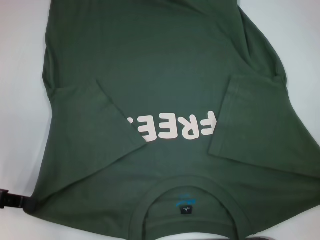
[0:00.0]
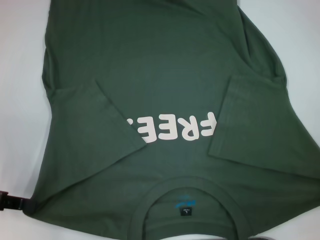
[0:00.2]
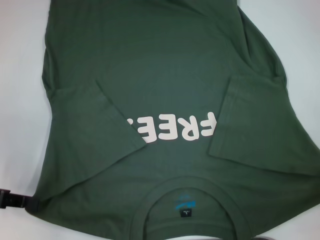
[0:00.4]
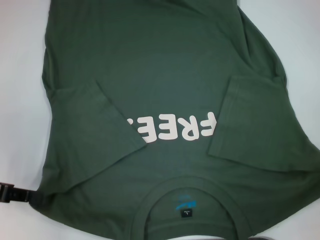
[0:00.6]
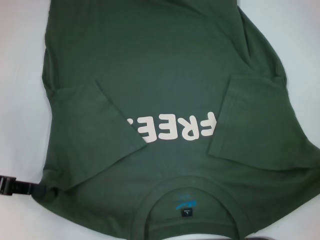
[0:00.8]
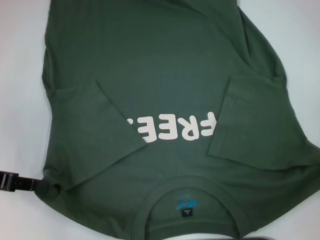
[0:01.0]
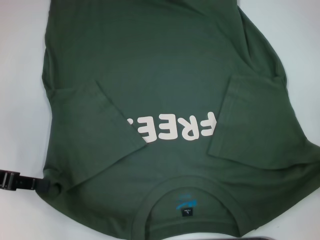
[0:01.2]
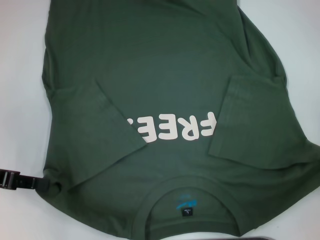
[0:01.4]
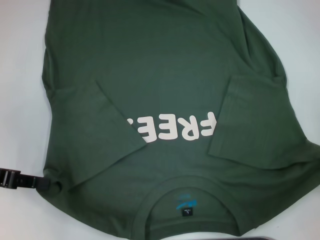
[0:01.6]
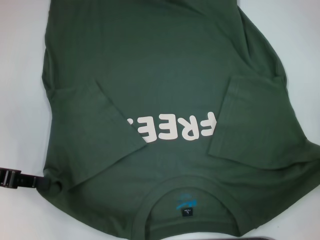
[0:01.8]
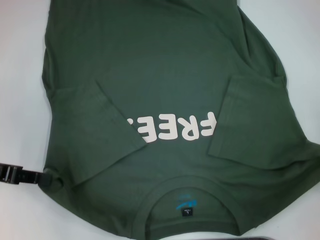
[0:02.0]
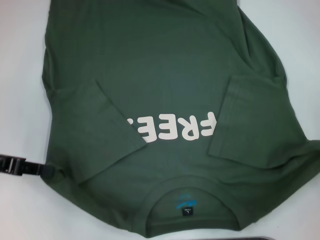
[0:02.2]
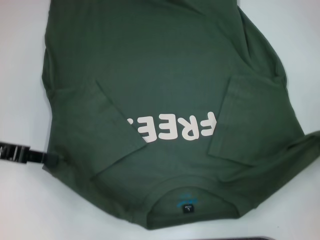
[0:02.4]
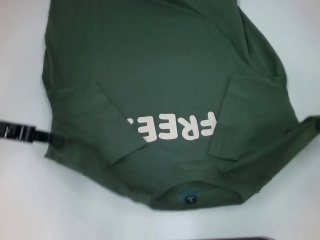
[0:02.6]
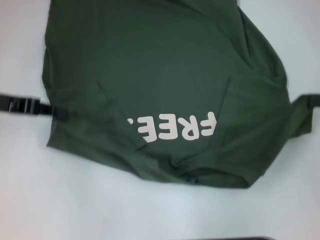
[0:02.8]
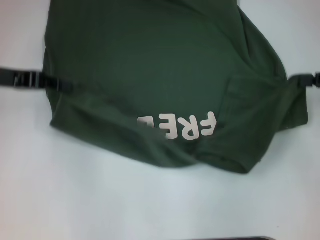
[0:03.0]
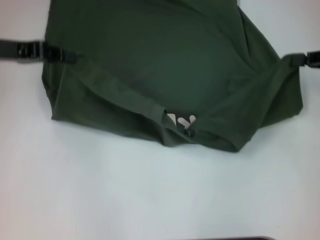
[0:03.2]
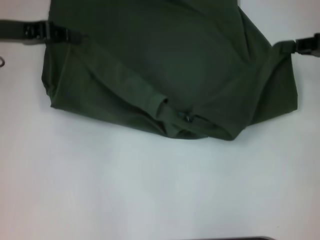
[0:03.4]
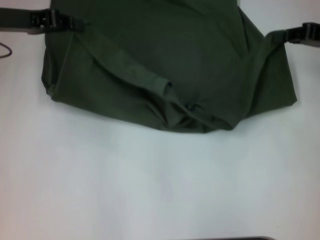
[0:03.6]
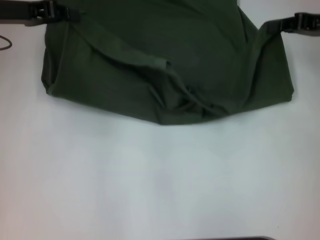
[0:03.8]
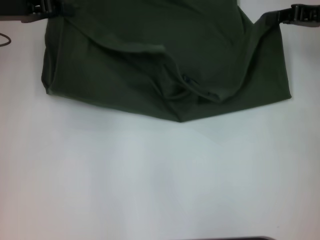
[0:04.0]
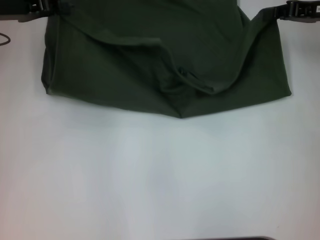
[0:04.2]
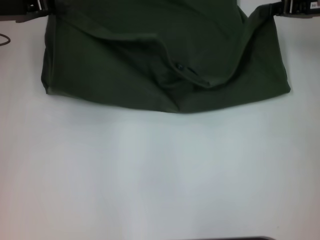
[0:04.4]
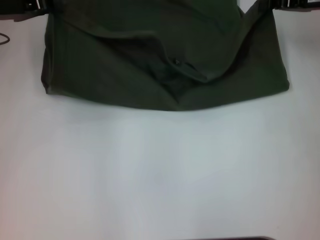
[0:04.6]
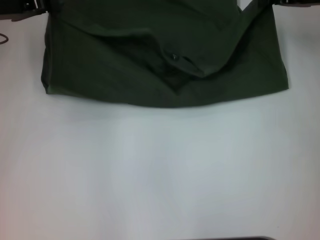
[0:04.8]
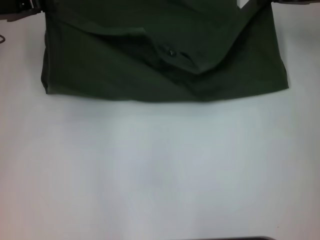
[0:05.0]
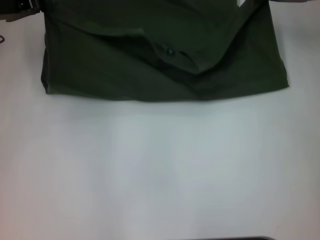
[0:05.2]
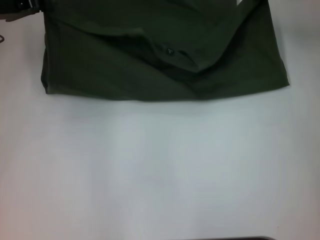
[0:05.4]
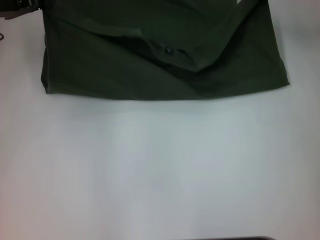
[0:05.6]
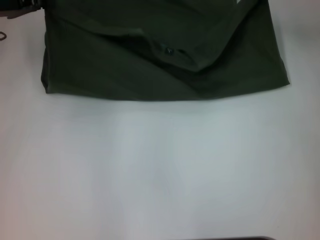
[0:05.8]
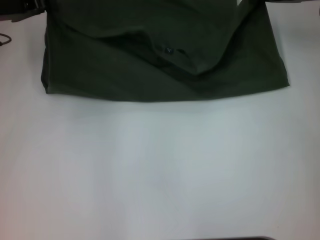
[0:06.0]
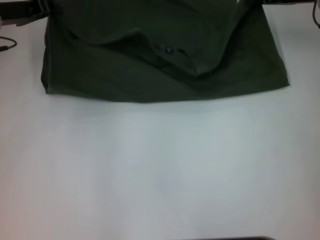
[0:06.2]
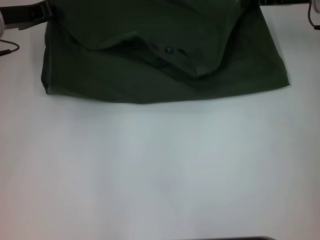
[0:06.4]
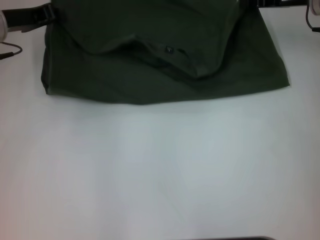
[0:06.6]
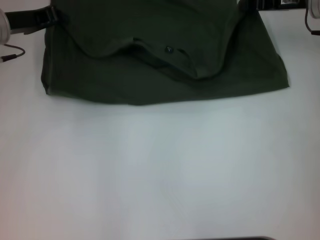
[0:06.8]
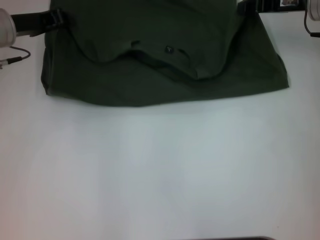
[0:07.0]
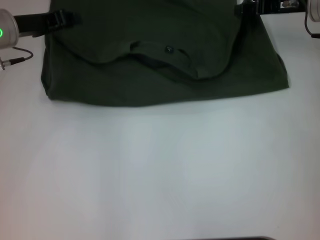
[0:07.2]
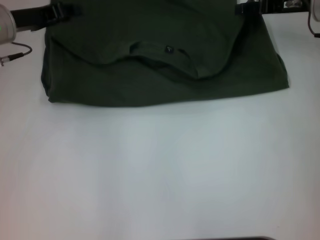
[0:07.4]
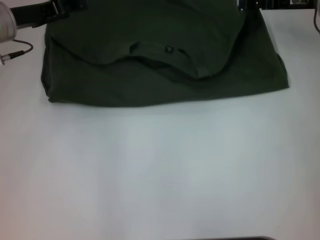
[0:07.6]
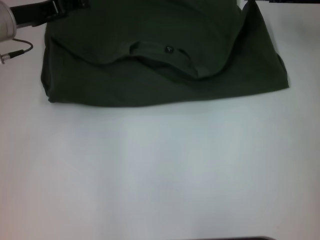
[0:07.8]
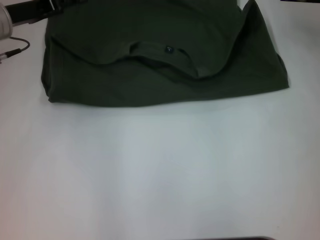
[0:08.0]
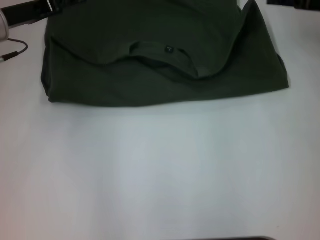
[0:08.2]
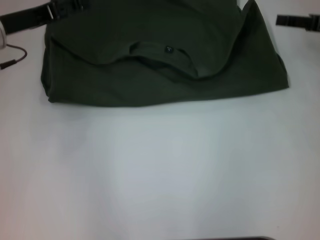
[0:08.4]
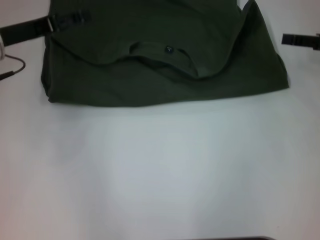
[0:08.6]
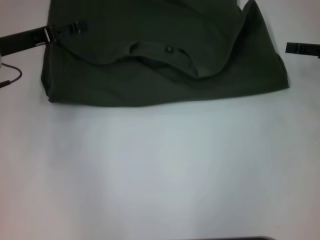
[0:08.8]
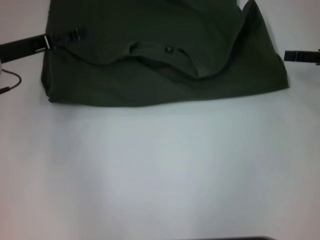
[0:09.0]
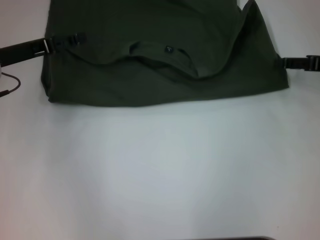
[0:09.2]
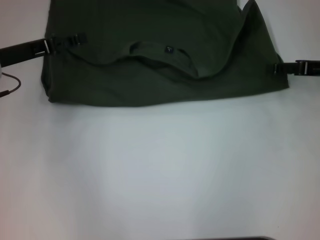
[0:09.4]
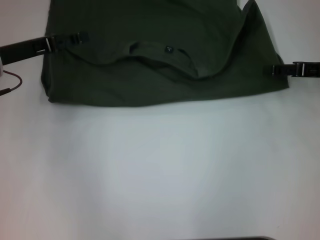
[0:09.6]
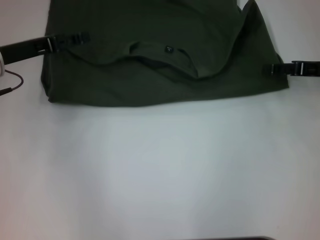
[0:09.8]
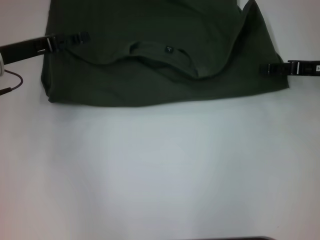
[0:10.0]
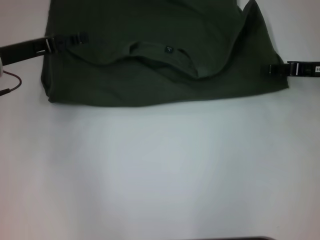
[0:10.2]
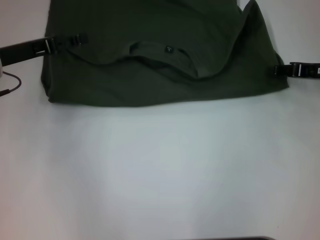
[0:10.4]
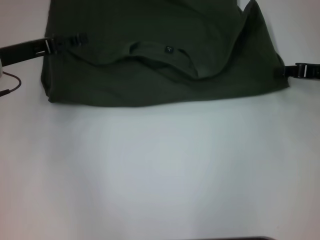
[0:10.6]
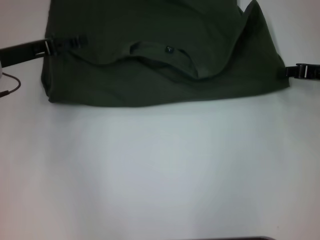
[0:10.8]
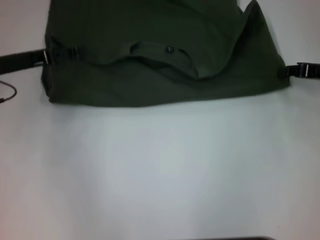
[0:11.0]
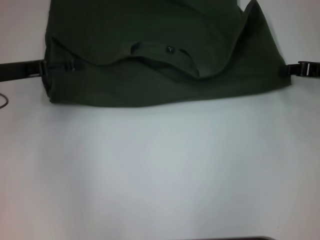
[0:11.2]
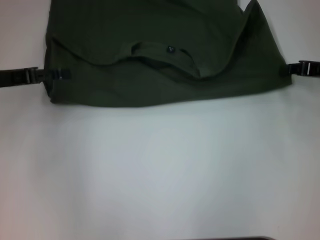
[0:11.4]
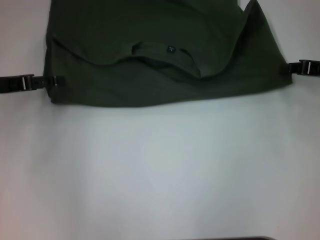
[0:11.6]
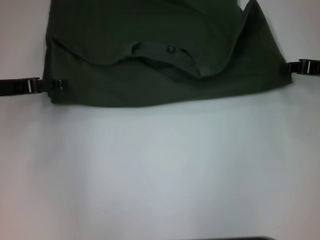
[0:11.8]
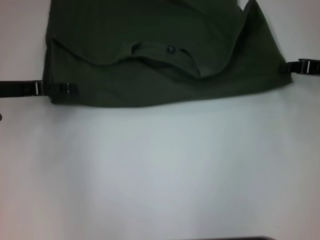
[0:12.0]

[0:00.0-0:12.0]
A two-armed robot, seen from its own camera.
Step, 0:00.4 to 0:07.6: Fold the clothes with your left hand.
Step, 0:00.4 to 0:07.6: Fold the clothes with your right hand.
0:00.0 to 0:01.6: The grippers move only a little.
0:01.6 to 0:03.0: The left gripper shifts some 10 cm forward and upward. The right gripper travels forward by about 10 cm.
0:03.0 to 0:04.4: The right gripper goes some 15 cm forward and to the left. The left gripper shifts some 5 cm forward.
0:04.4 to 0:06.0: The grippers make only small movements.
0:06.0 to 0:07.6: The right gripper opens up; the left gripper opens.
0:07.6 to 0:09.0: The right gripper goes roughly 15 cm backward and to the right. The left gripper is displaced backward by about 5 cm, and opens its fingers.
0:09.0 to 0:10.4: There are only small adjustments of the grippers.
0:10.4 to 0:12.0: The right gripper closes its fingers.

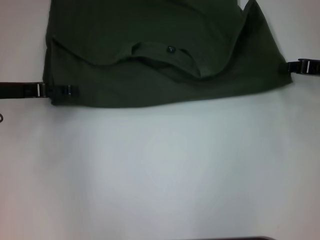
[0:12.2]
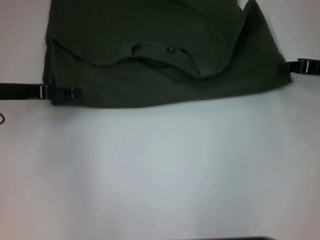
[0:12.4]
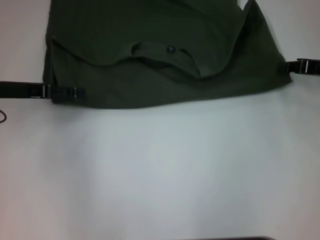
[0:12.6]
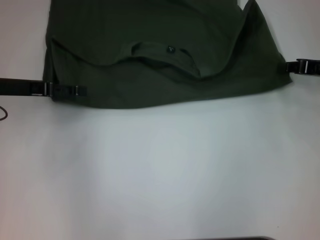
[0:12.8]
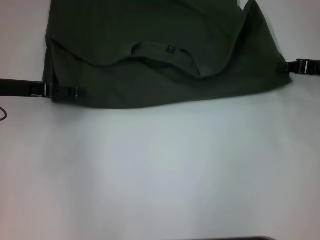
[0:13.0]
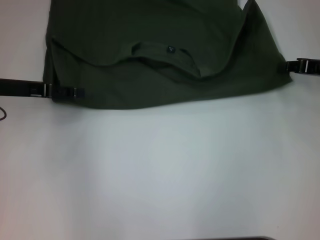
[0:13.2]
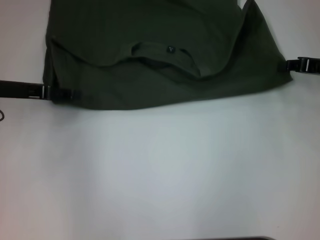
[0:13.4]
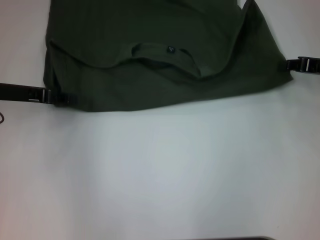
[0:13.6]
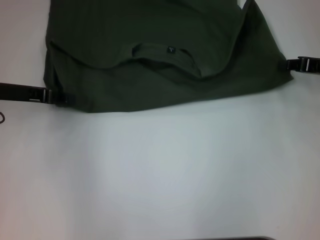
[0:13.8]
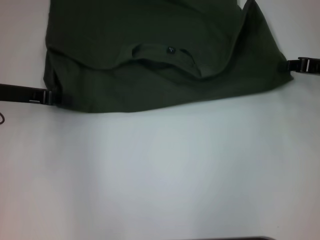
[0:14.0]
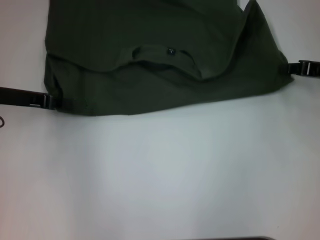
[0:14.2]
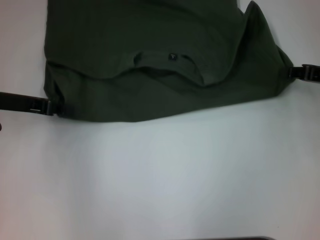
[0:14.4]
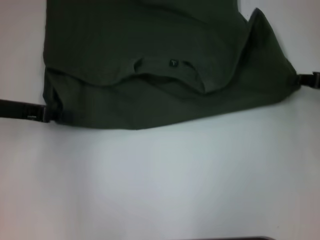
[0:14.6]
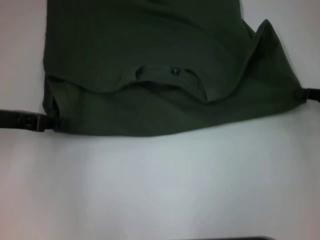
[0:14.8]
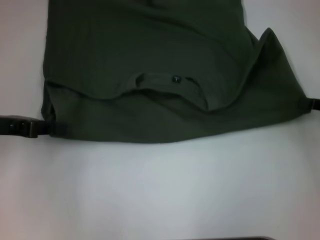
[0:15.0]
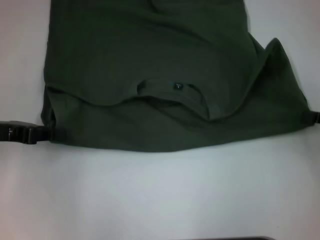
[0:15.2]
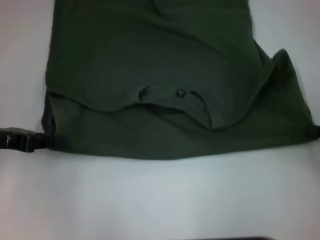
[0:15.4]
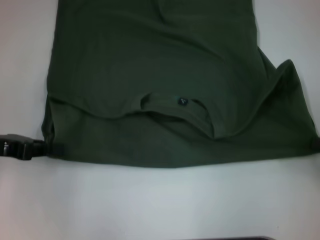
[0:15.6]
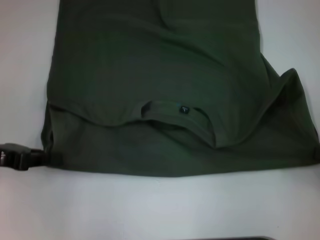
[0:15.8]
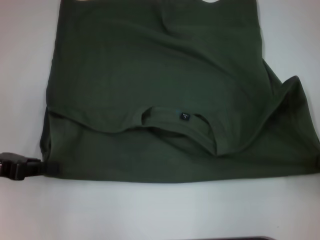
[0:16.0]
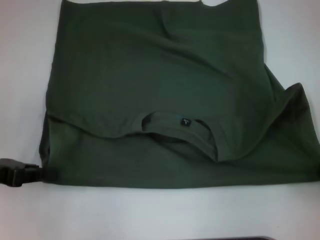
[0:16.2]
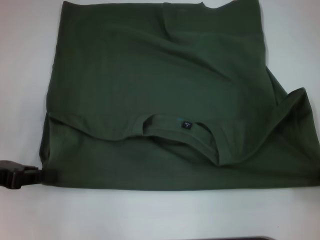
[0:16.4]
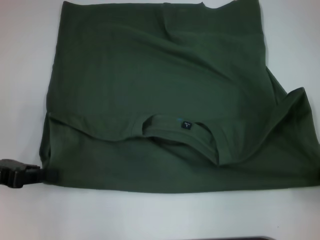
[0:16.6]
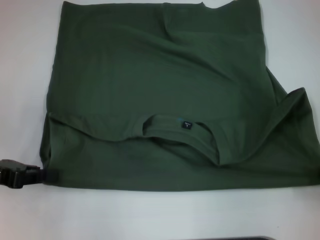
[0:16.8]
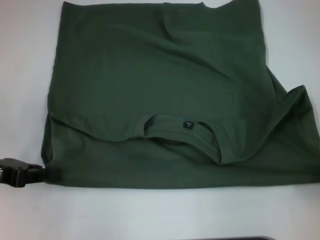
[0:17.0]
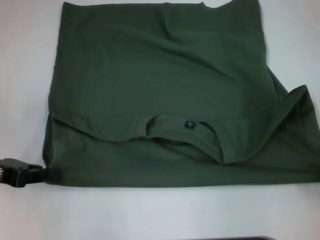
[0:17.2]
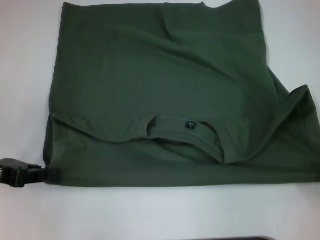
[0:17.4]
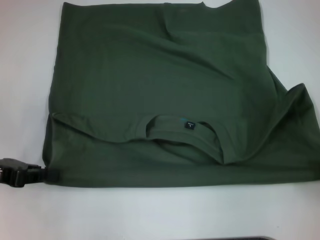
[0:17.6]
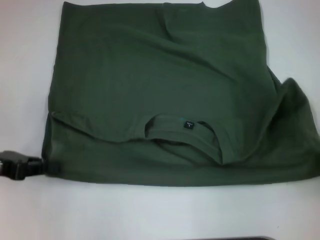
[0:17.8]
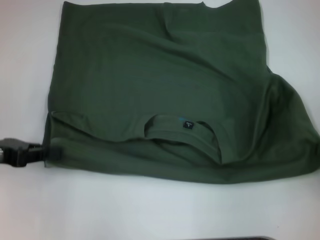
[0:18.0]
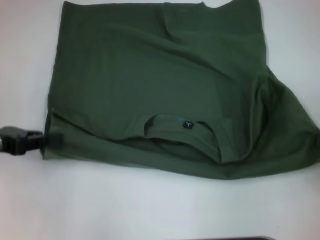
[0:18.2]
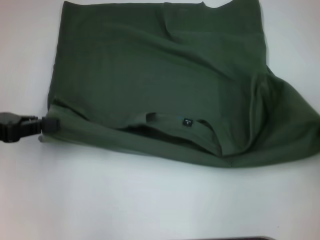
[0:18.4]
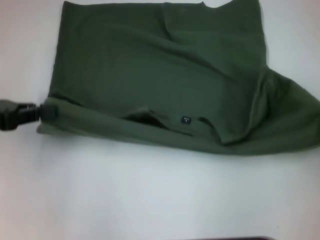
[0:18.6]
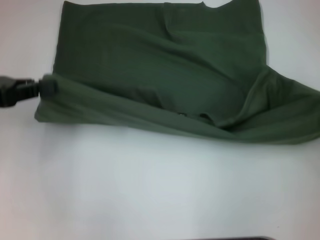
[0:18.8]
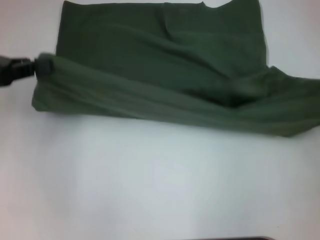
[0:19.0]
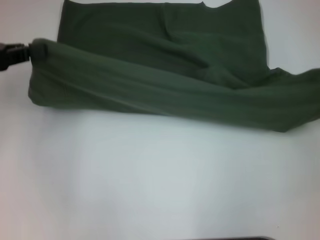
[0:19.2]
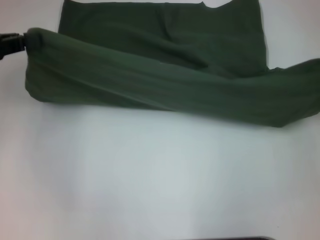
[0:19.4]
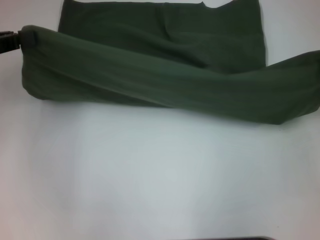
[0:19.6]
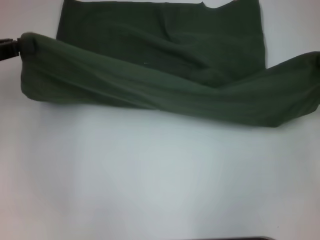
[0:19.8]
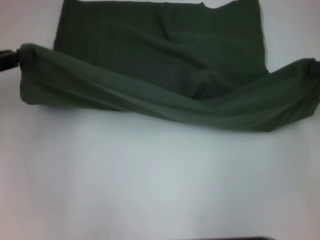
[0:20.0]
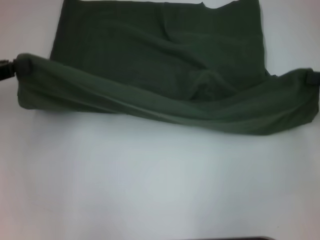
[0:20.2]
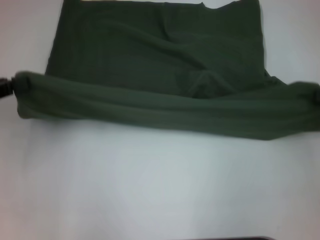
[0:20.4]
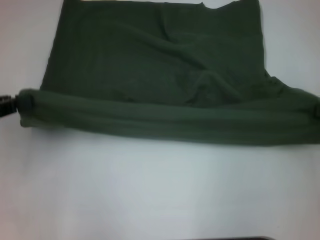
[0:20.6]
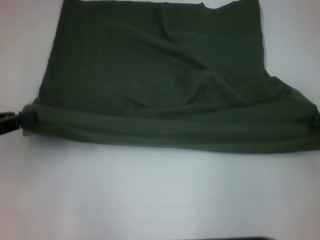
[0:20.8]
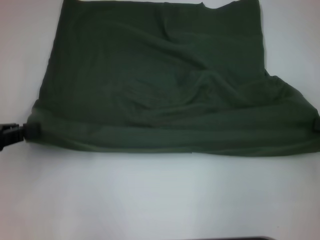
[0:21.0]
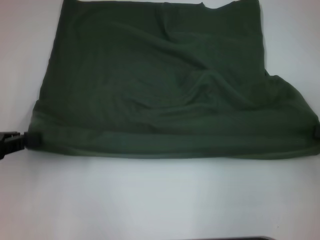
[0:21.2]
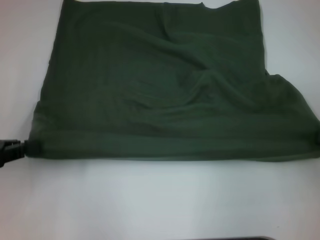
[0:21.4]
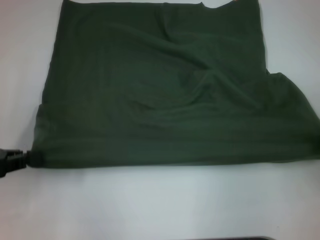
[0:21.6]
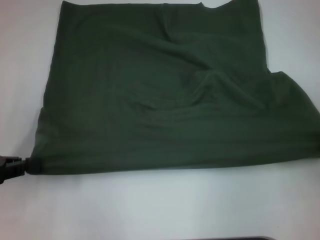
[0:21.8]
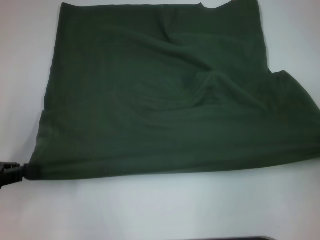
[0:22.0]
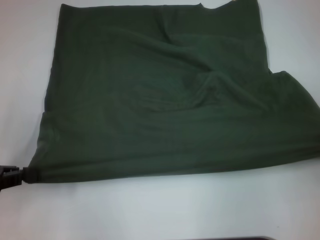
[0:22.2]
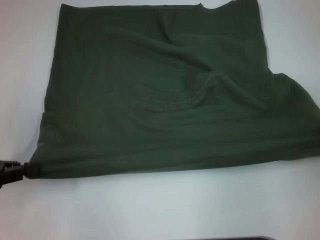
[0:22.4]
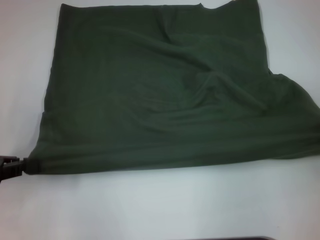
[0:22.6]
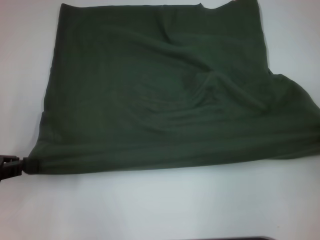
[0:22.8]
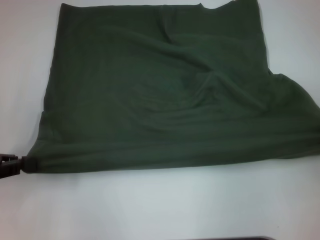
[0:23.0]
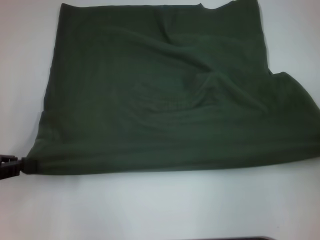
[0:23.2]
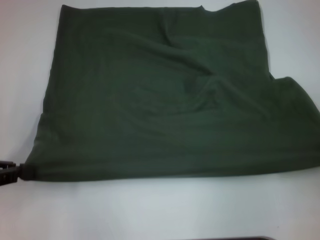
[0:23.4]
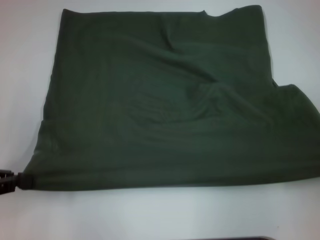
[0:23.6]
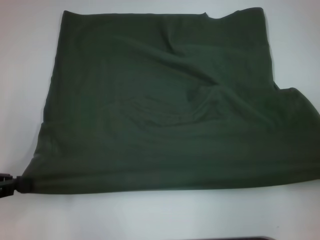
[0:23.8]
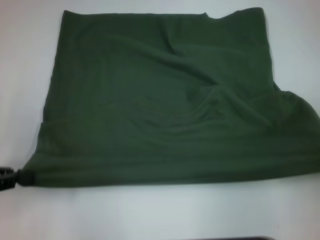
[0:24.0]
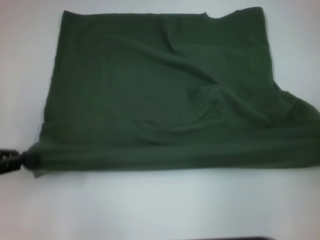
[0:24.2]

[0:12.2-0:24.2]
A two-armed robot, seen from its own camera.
Step, 0:12.2 to 0:16.8: Pull the clothes with your left hand.
Step, 0:12.2 to 0:16.8: Pull the clothes with your right hand.
0:12.2 to 0:13.8: The left gripper closes its fingers.
0:13.8 to 0:15.2: The right gripper travels backward by roughly 10 cm. Meanwhile the left gripper shifts some 5 cm backward, and closes up.
0:15.2 to 0:16.6: The left gripper shifts by roughly 5 cm; the right gripper moves backward, roughly 10 cm.
0:16.6 to 0:18.2: The grippers move only a little.
0:18.2 to 0:19.8: The left gripper travels upward by roughly 5 cm, while the right gripper travels forward and upward by about 15 cm.
0:19.8 to 0:21.2: The two grippers go roughly 10 cm backward and downward.
0:21.2 to 0:22.6: The grippers move only a little.
0:22.6 to 0:24.2: The grippers stay close to where they were, moving slightly.
